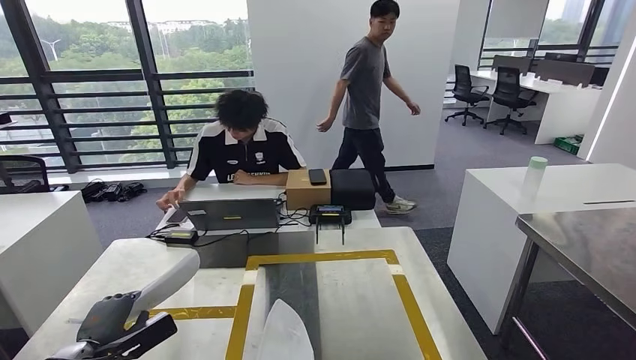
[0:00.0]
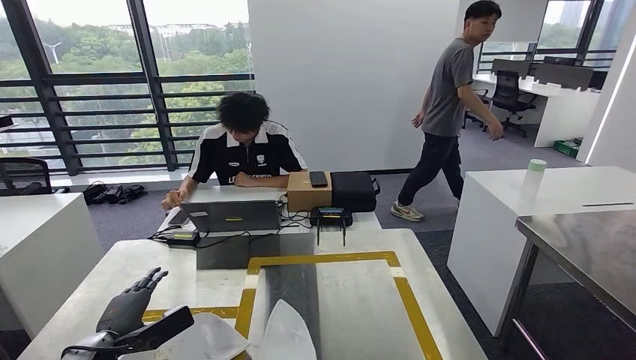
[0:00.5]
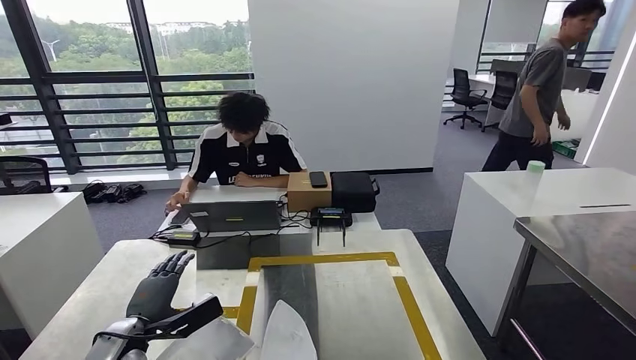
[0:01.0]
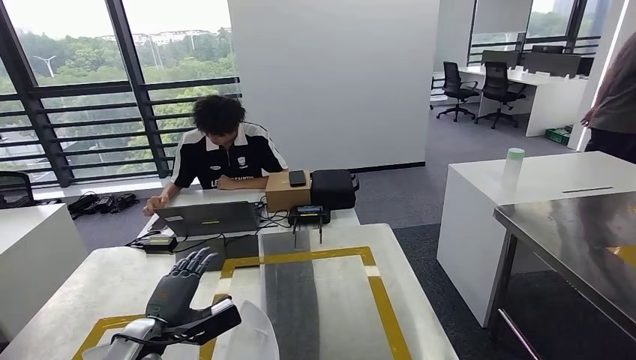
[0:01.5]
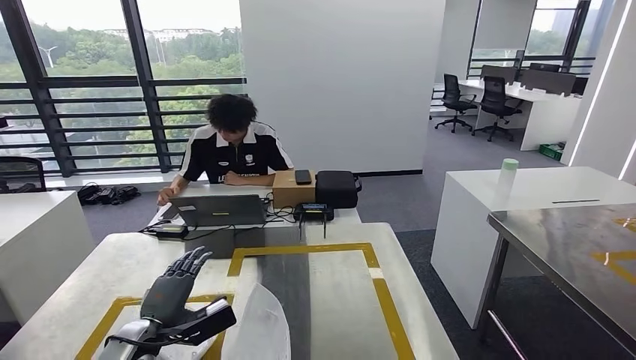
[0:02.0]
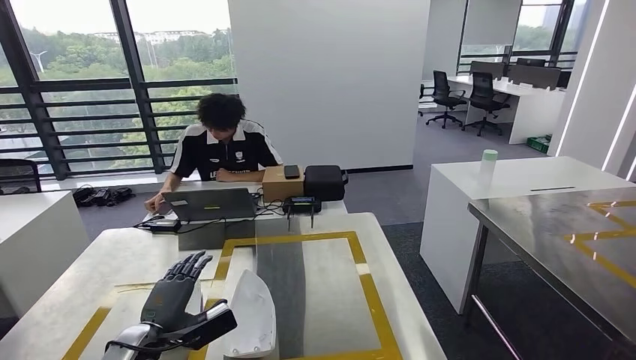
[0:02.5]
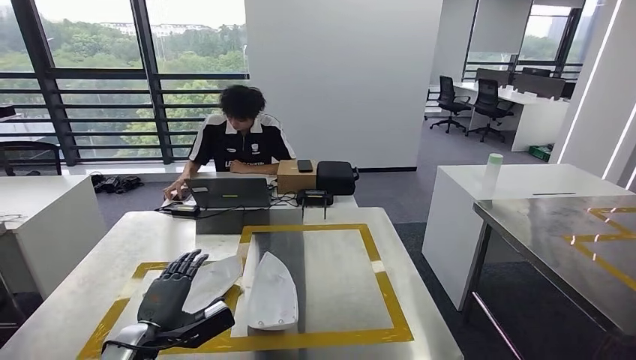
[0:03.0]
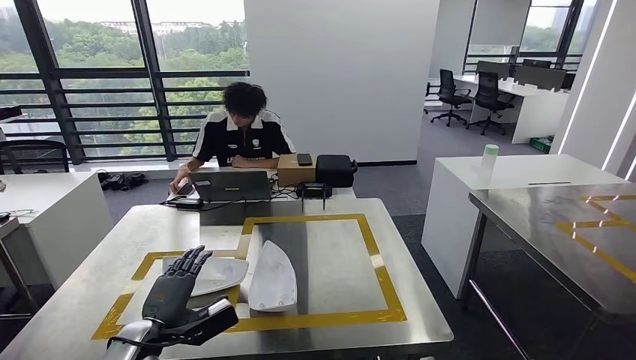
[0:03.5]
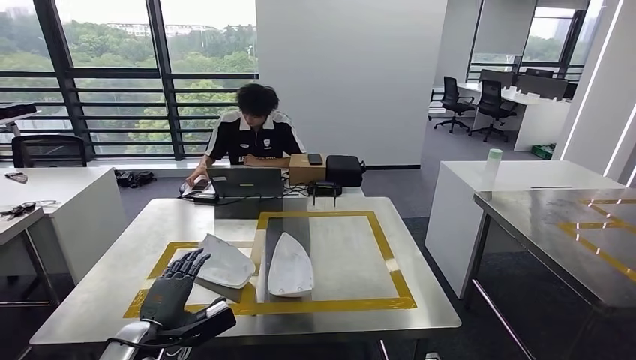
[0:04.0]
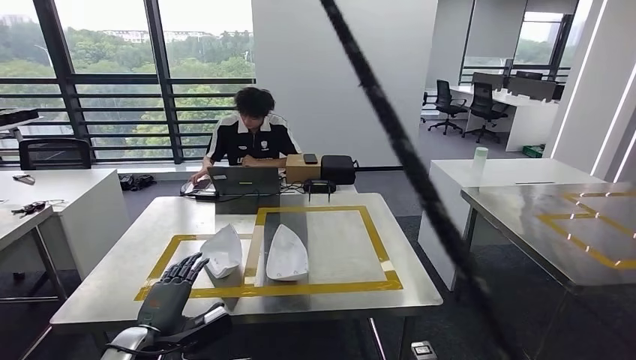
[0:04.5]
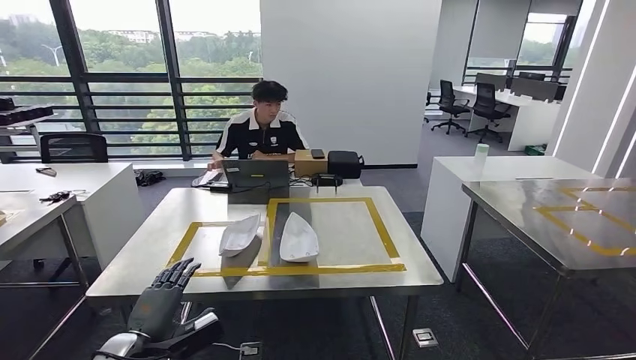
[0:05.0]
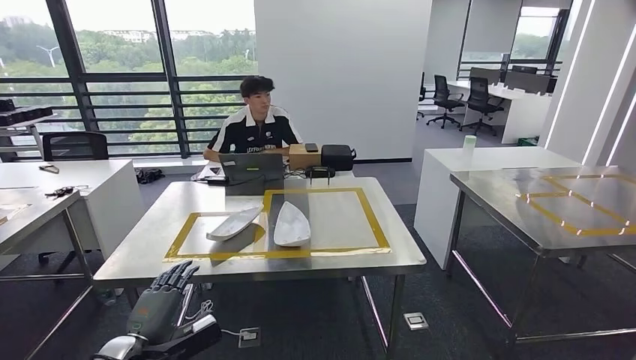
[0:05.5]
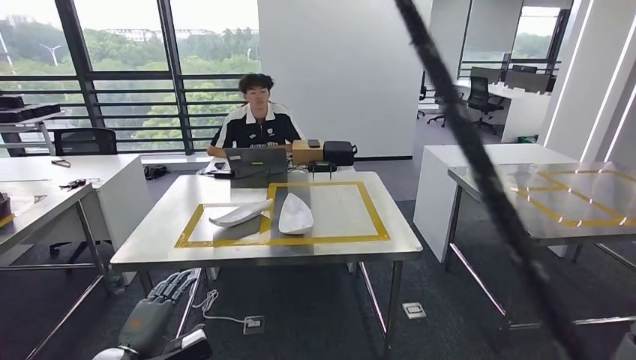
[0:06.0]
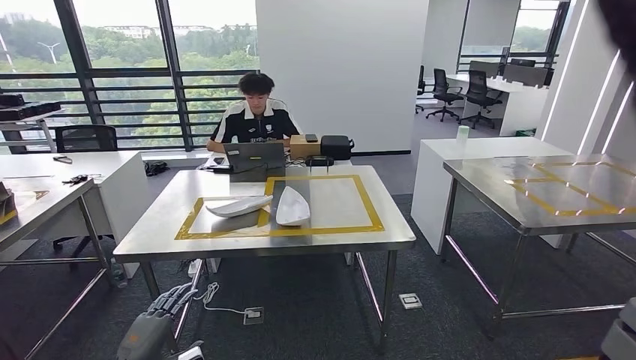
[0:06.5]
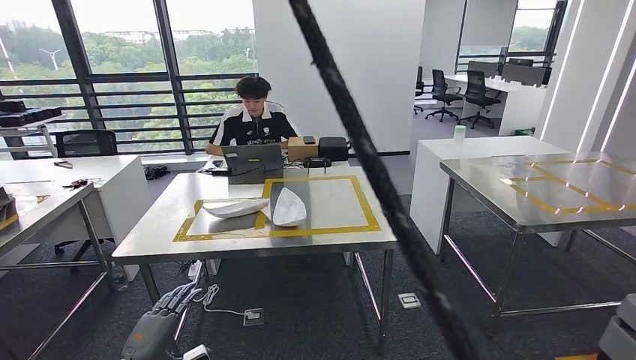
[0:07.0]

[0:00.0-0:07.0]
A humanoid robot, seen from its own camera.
Step, 0:03.5 to 0:07.0: Move to the initial position of the workbench.
